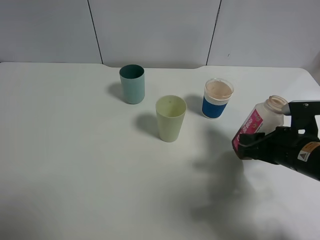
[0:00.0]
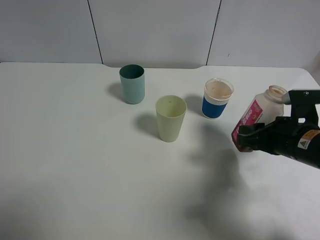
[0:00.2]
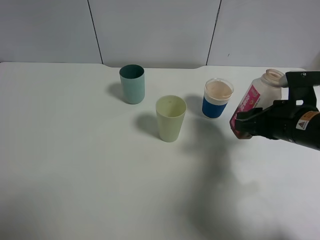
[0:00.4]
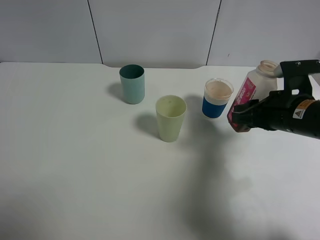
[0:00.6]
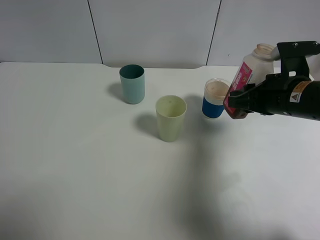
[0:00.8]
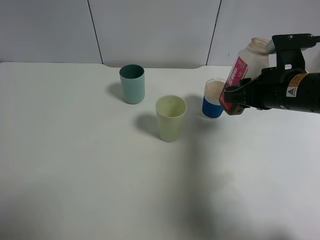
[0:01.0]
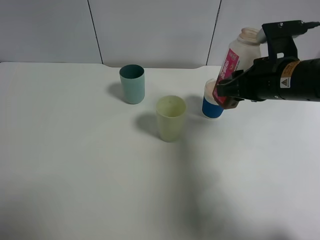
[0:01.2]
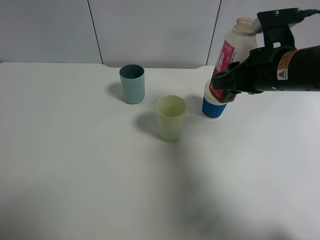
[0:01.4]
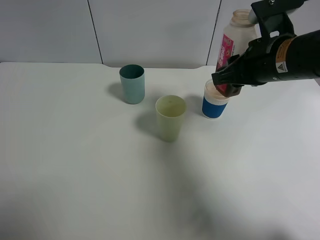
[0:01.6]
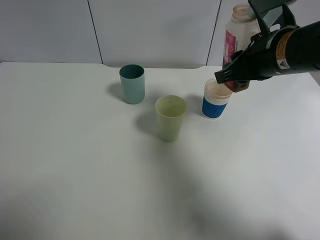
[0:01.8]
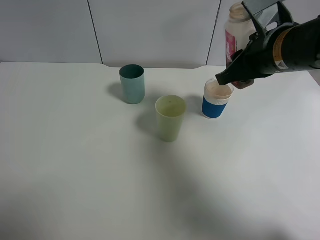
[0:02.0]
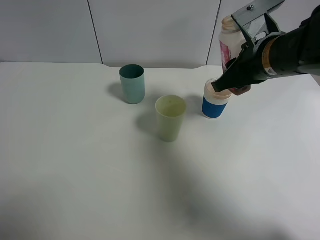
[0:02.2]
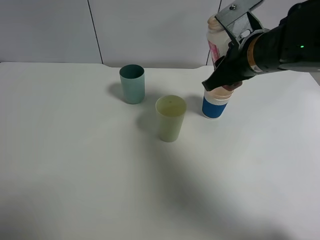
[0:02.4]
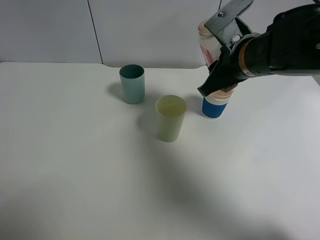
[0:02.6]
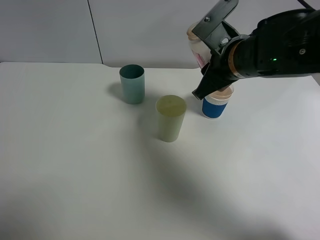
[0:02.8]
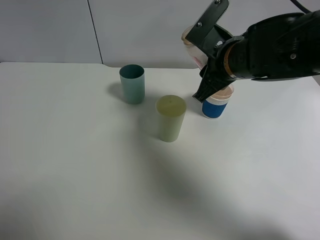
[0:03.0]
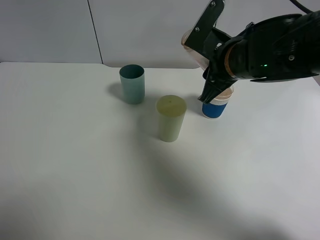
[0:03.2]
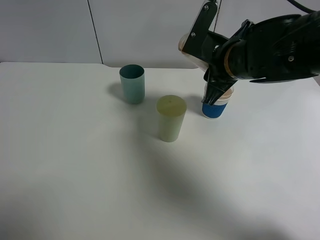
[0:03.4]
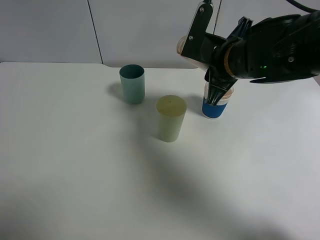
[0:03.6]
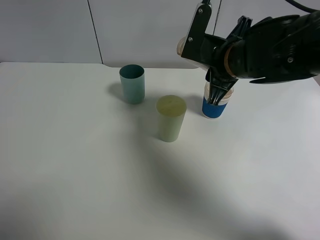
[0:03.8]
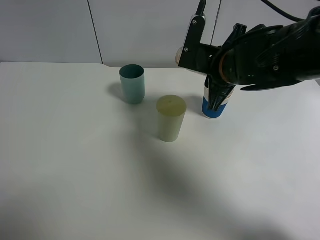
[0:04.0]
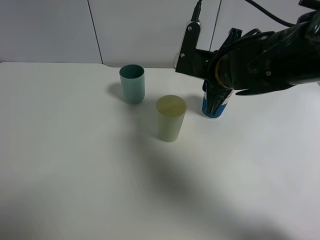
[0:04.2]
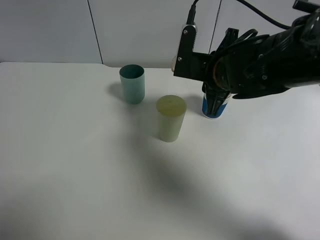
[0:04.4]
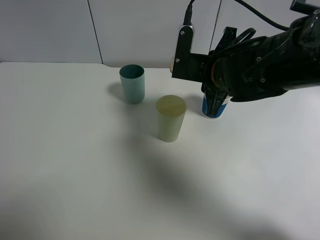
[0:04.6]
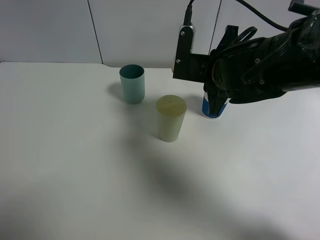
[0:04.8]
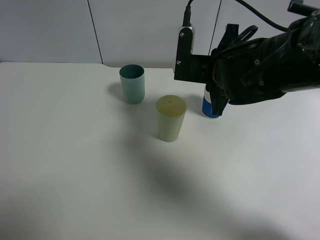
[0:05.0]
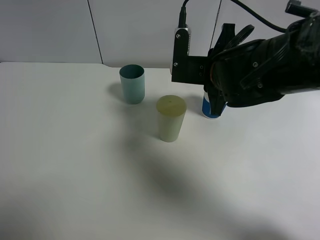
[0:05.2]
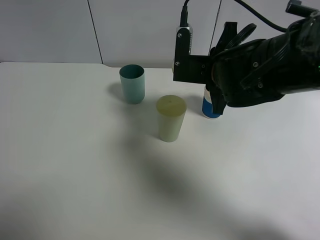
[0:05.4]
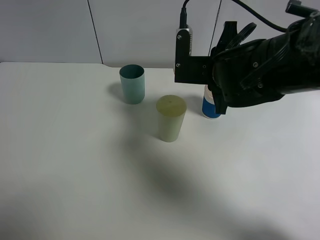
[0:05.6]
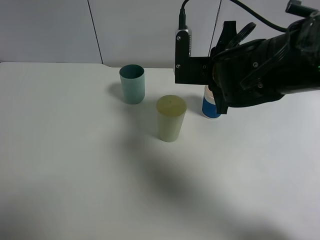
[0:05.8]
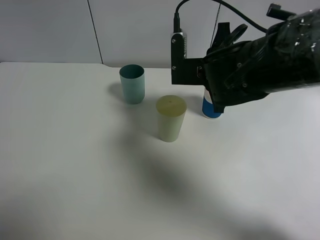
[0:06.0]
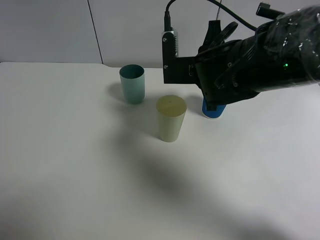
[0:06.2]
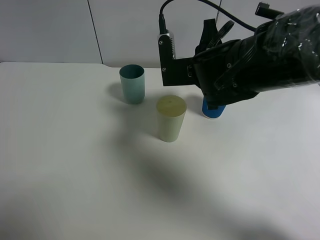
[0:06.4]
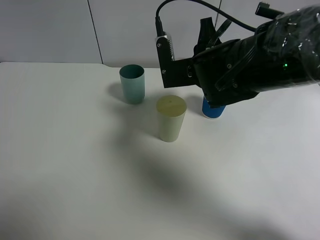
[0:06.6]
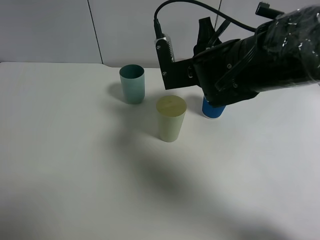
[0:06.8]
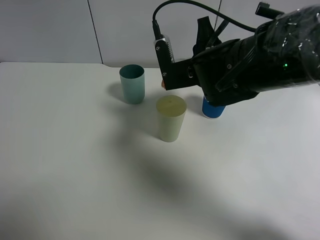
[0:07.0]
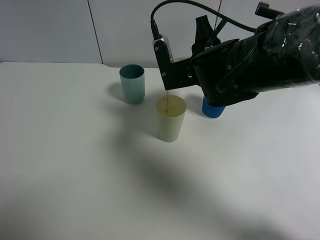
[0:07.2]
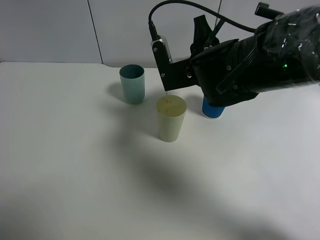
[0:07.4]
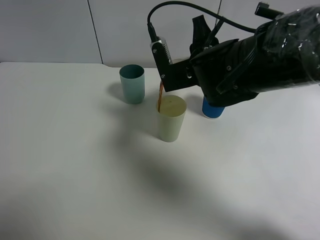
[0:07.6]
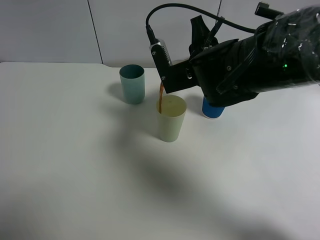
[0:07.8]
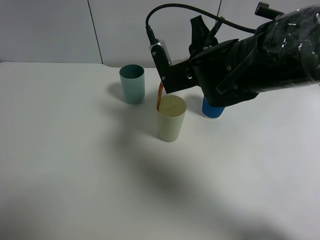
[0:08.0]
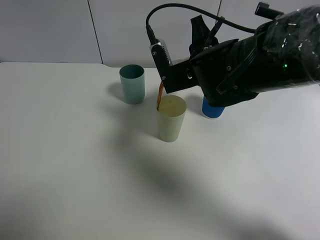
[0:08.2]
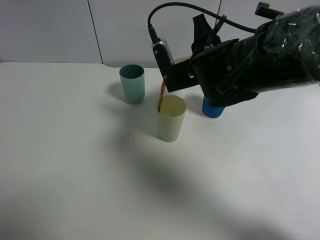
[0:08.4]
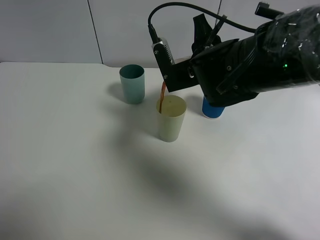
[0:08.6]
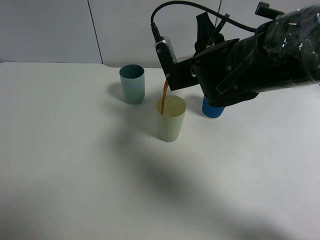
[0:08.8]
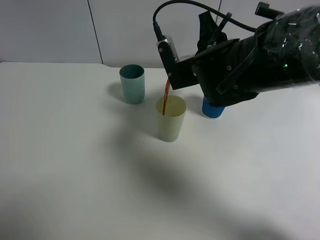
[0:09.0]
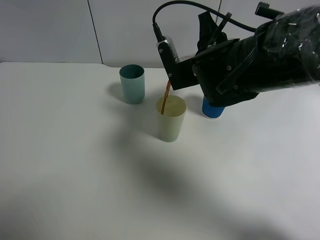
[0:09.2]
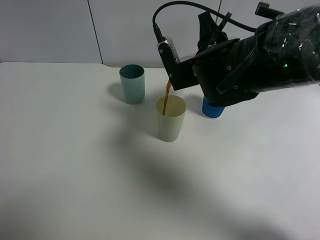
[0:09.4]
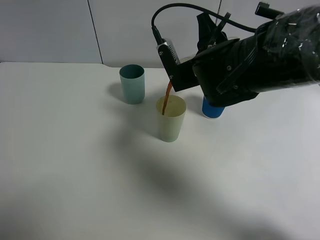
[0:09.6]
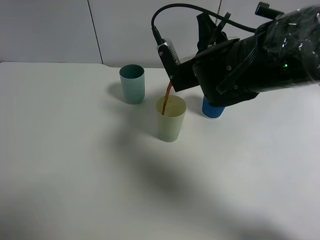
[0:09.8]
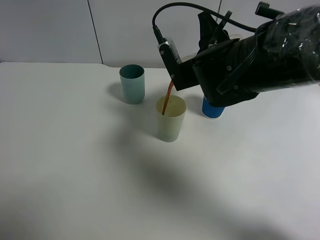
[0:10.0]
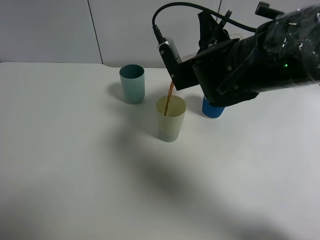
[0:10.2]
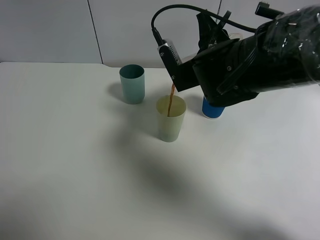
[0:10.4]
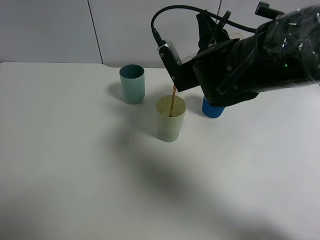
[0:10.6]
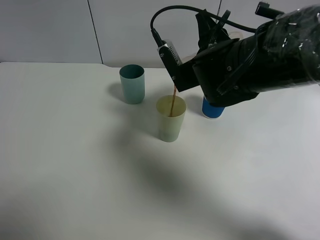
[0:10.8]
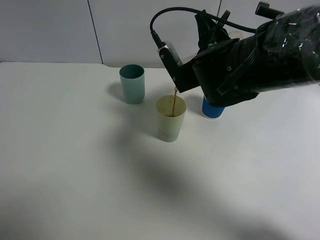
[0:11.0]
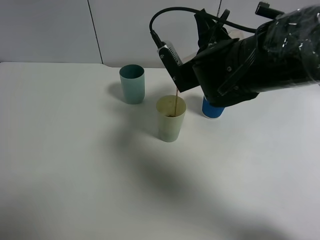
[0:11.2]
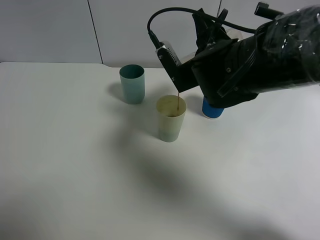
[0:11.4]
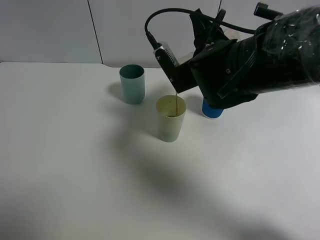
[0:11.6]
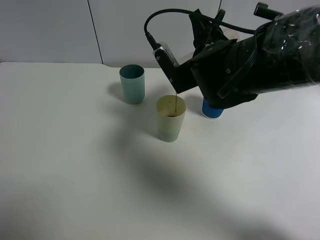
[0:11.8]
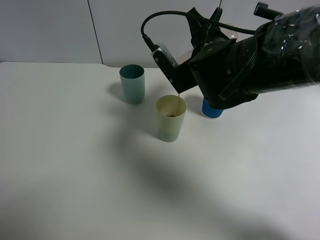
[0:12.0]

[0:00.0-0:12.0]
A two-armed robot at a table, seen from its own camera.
Task of the whole recording: use a gripper to hold the bottle of the drink and pour it into a random cup.
0:00.0 to 0:01.6: The right gripper heads upward, forward and to the left, covering roughly 15 cm.
0:01.6 to 0:03.0: The right gripper travels to the left by approximately 5 cm.
0:04.4 to 0:06.0: The grippers make only small movements.
0:06.0 to 0:07.6: The grippers move only a little.
0:07.6 to 0:12.0: There are only small adjustments of the grippers.

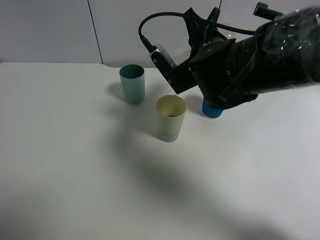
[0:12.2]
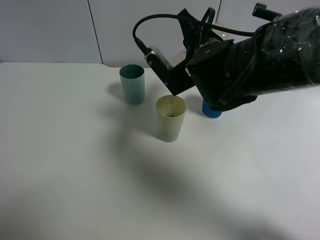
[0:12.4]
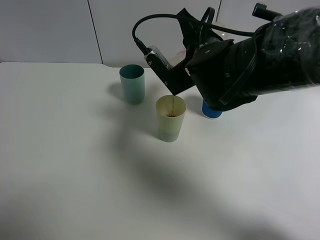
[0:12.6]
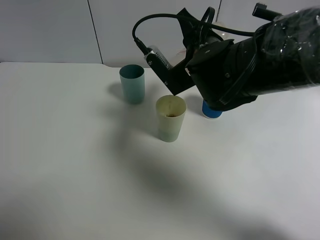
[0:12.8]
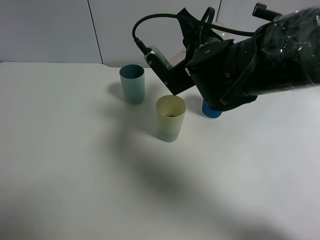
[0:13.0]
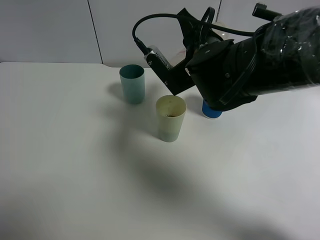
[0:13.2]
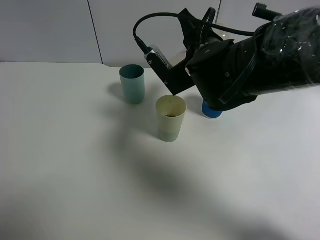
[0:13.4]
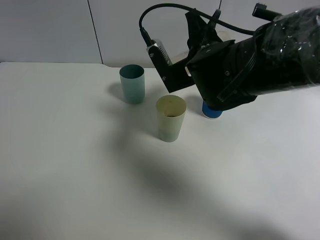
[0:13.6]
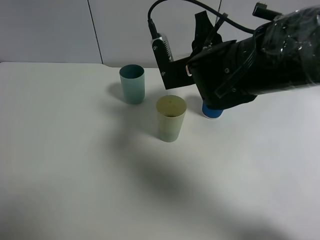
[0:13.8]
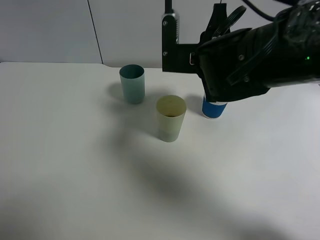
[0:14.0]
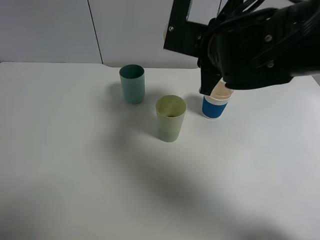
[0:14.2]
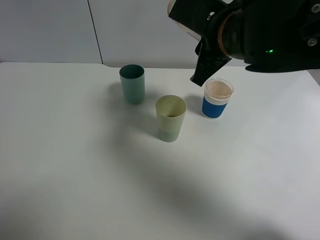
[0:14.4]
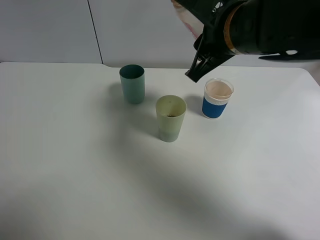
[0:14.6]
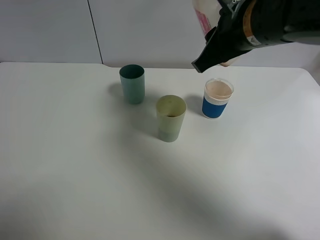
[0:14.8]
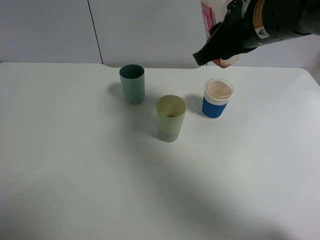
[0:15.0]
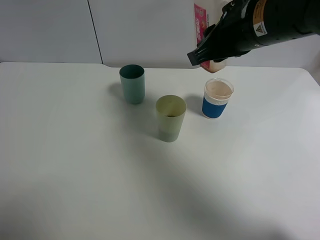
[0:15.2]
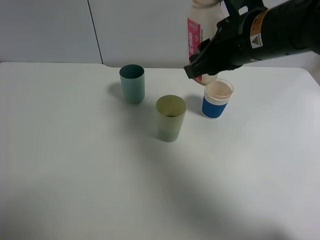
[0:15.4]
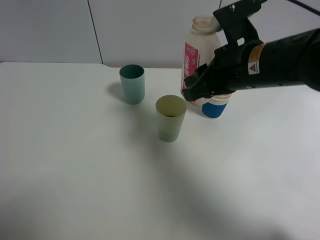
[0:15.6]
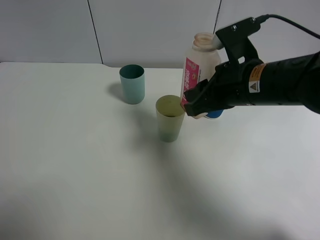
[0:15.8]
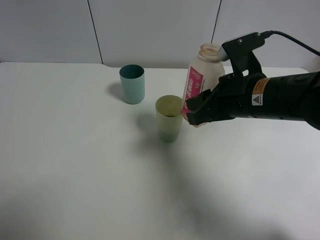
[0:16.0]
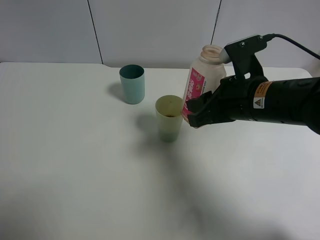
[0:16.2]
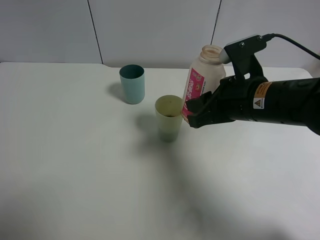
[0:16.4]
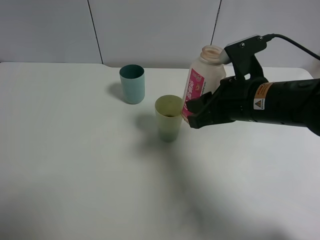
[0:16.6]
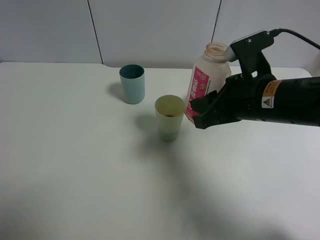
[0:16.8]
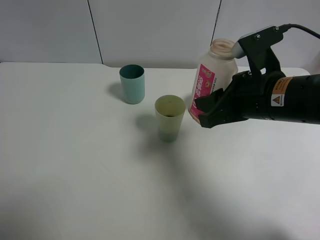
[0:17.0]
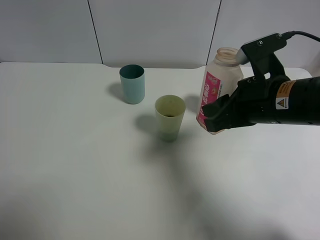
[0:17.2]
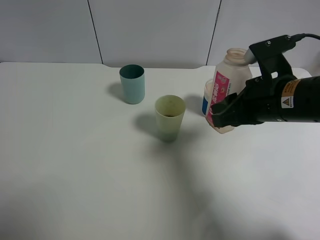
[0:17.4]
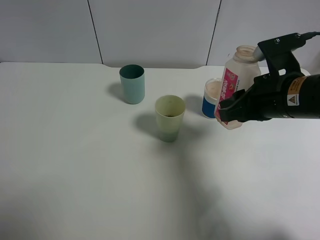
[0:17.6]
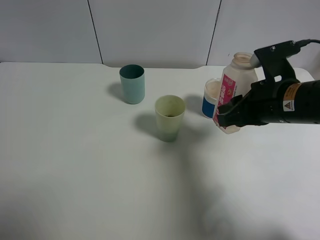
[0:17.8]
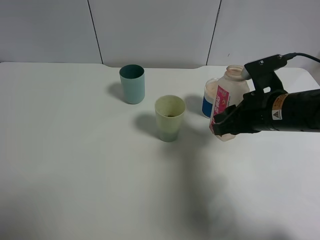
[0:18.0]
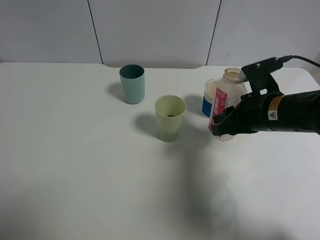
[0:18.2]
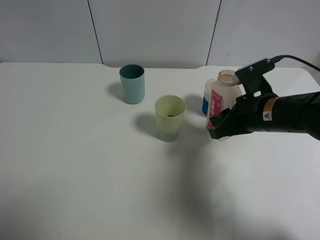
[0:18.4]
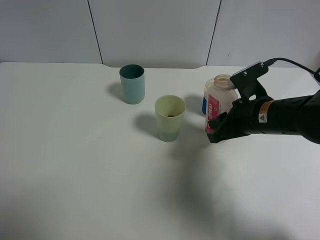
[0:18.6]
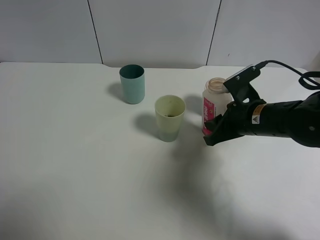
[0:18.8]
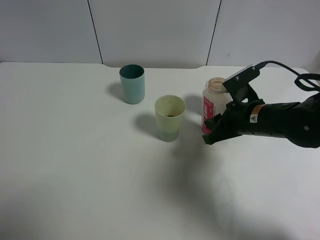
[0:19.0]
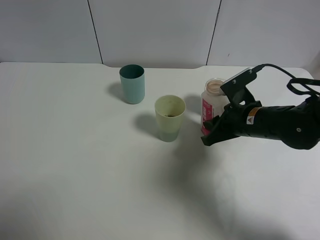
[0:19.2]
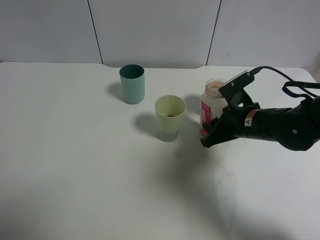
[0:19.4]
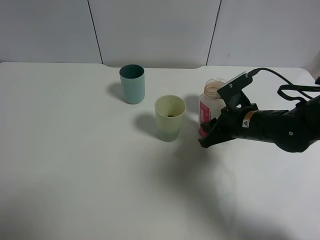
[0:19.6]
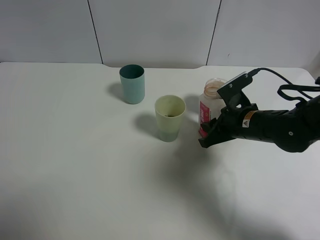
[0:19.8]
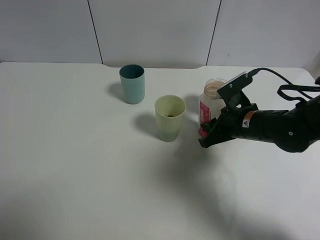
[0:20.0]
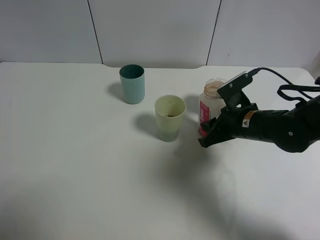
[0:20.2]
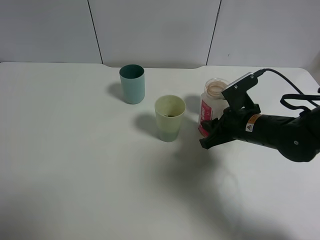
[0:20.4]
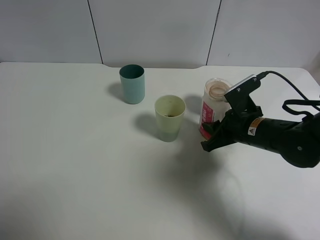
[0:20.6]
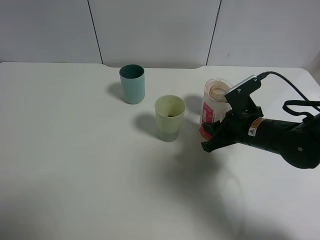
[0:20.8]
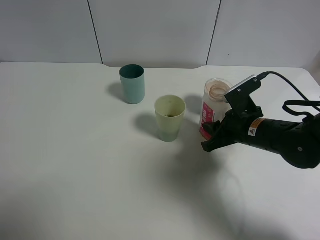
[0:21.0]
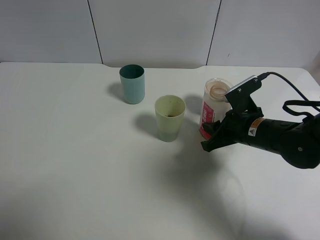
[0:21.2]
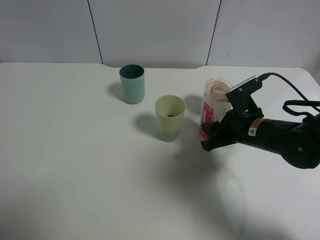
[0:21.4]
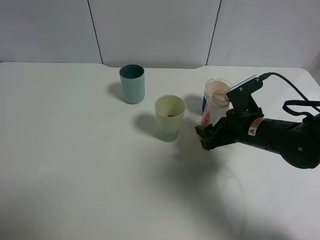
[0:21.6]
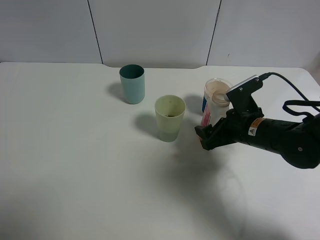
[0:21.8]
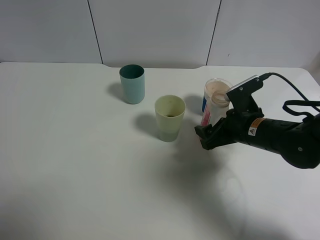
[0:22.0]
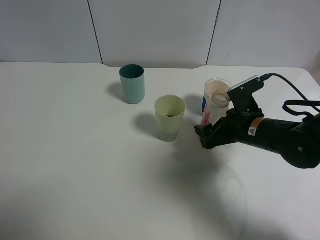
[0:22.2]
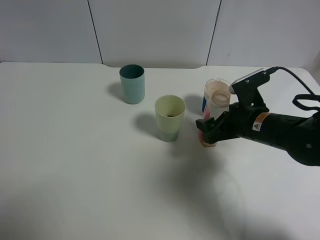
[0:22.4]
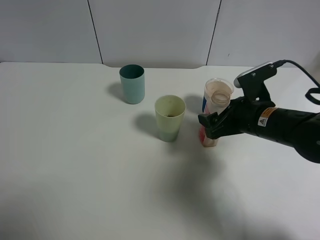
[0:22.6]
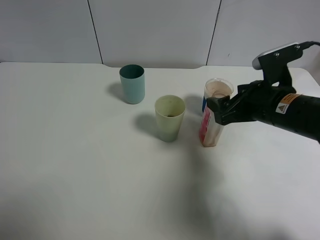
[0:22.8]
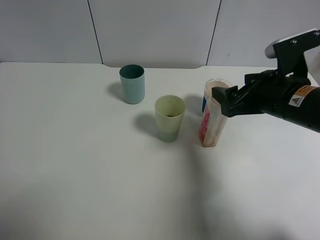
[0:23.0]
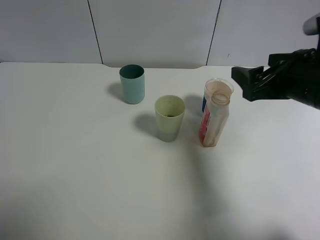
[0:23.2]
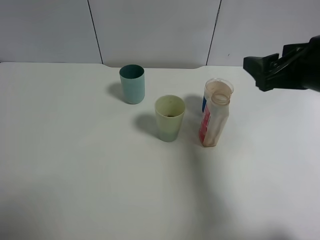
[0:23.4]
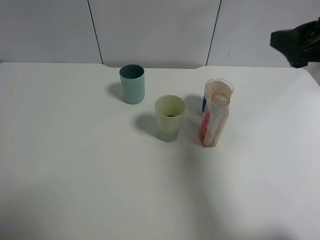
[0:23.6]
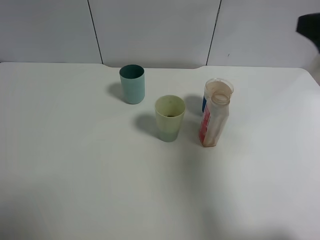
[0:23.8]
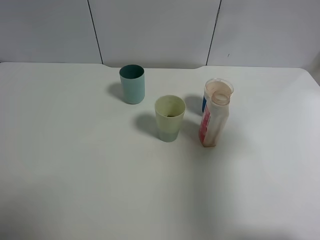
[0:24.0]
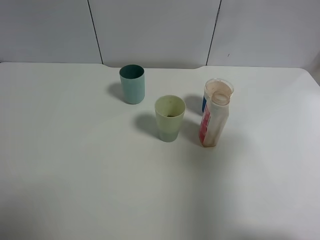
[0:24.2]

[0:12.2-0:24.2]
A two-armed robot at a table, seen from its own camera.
Task of the whole recording: use a gripper to hold the bottle of the drink and pour it into a random cup.
Step, 0:14.2 to 0:22.6: Place the cranberry juice bottle on the table with the right gripper.
0:13.8 to 0:15.2: The right gripper shifts approximately 10 cm upward.
0:15.2 to 0:16.6: The right gripper moves downward, about 10 cm.
0:16.6 to 0:18.2: The right gripper changes place by some 5 cm.
0:18.2 to 0:19.8: The right gripper shifts approximately 5 cm downward.
0:19.8 to 0:21.2: The grippers move only a little.
0:21.2 to 0:22.6: The right gripper opens up.
0:22.6 to 0:24.2: The right gripper is displaced upward, backward and to the right by some 30 cm.
